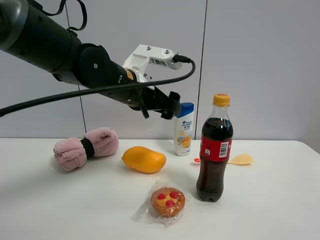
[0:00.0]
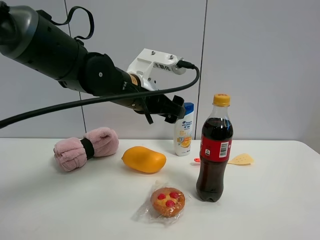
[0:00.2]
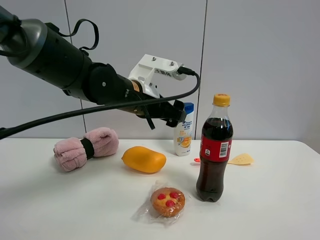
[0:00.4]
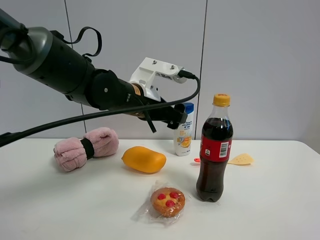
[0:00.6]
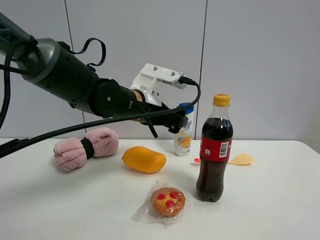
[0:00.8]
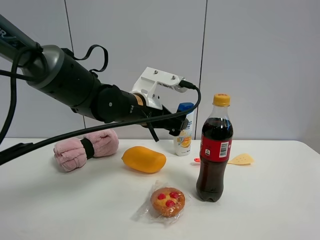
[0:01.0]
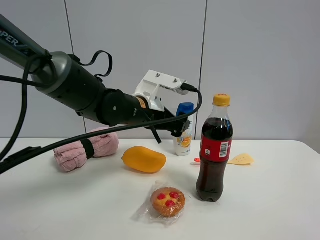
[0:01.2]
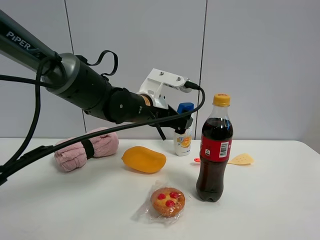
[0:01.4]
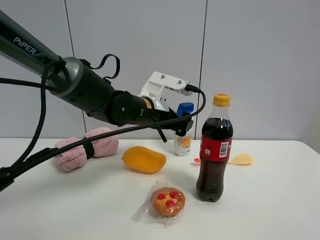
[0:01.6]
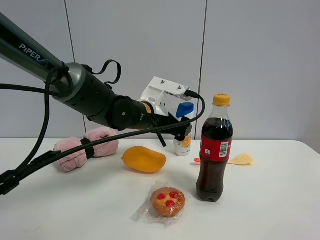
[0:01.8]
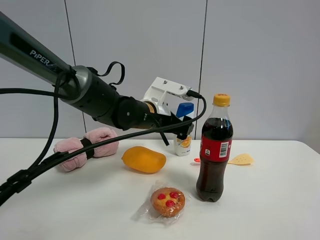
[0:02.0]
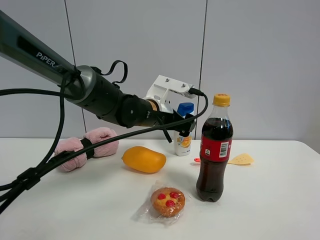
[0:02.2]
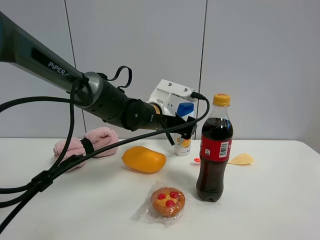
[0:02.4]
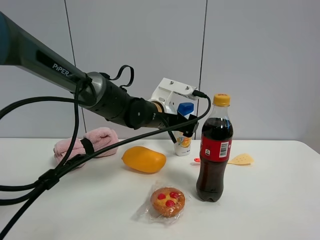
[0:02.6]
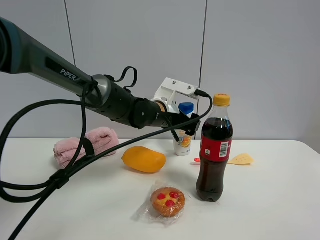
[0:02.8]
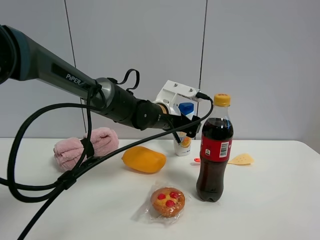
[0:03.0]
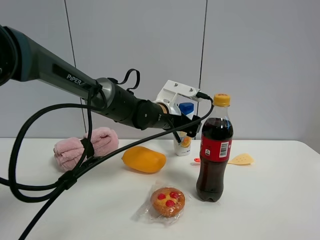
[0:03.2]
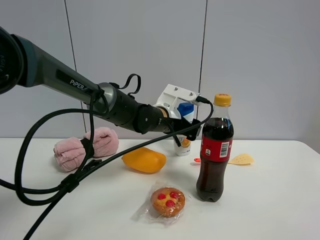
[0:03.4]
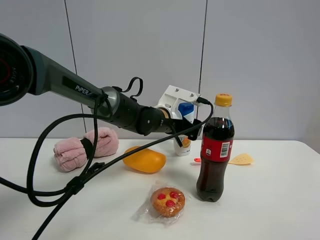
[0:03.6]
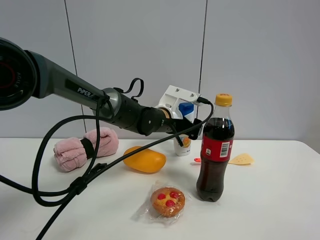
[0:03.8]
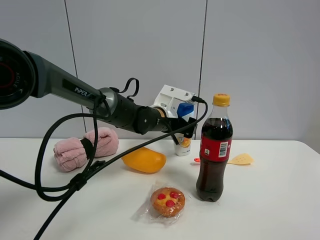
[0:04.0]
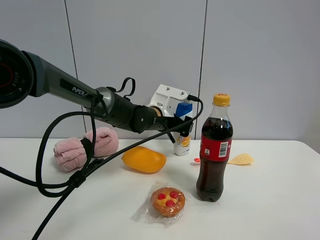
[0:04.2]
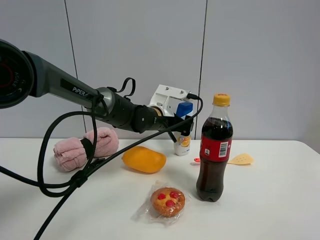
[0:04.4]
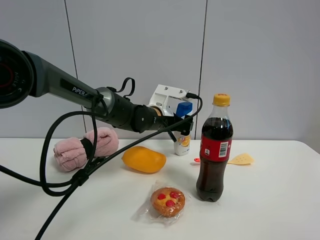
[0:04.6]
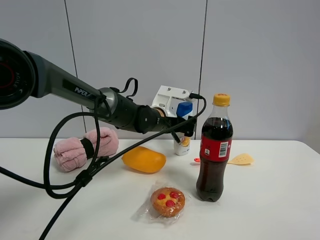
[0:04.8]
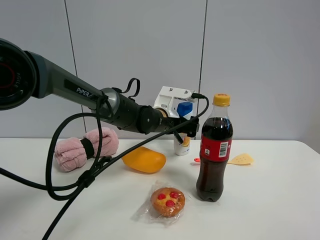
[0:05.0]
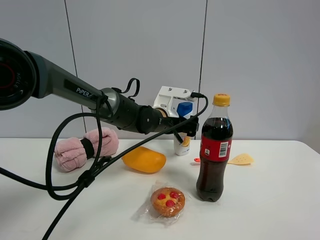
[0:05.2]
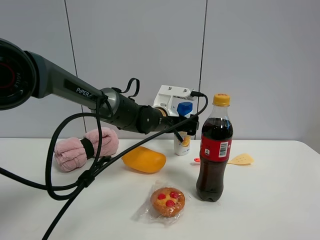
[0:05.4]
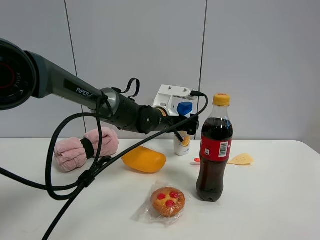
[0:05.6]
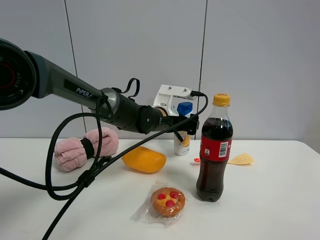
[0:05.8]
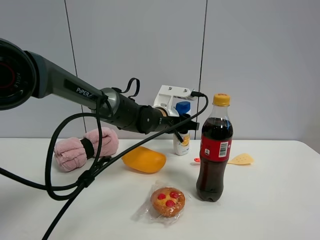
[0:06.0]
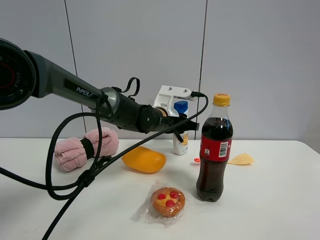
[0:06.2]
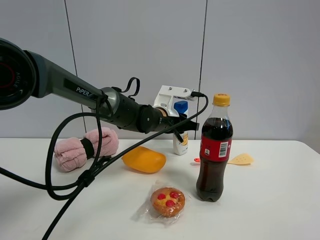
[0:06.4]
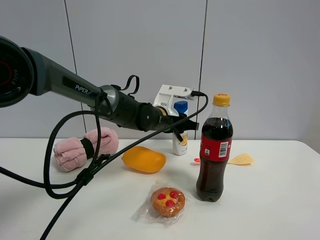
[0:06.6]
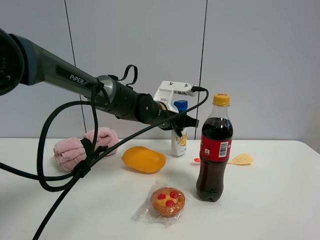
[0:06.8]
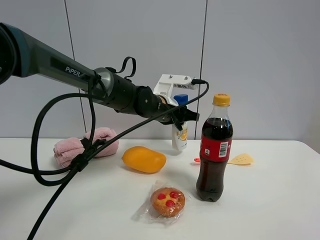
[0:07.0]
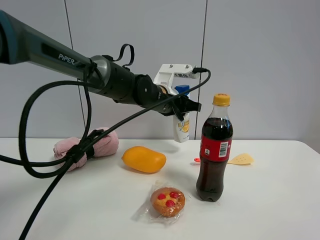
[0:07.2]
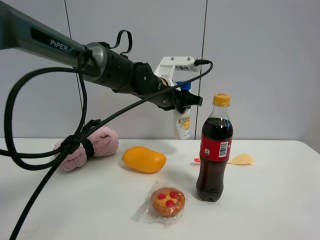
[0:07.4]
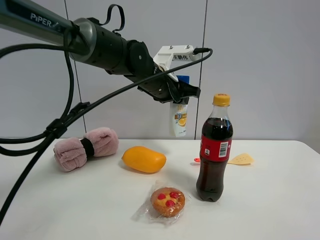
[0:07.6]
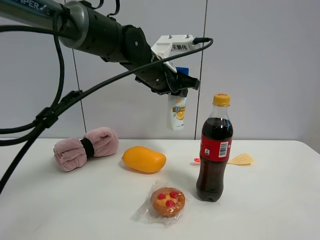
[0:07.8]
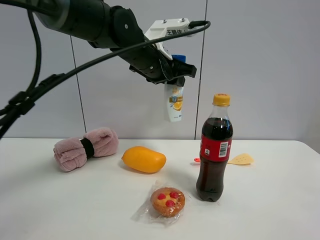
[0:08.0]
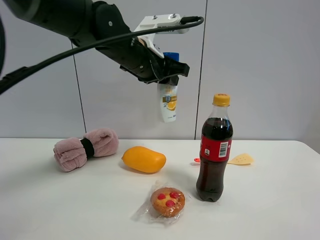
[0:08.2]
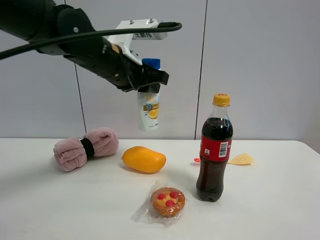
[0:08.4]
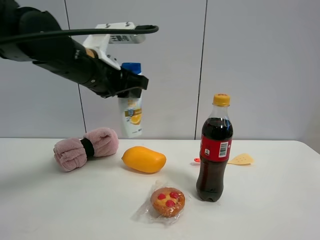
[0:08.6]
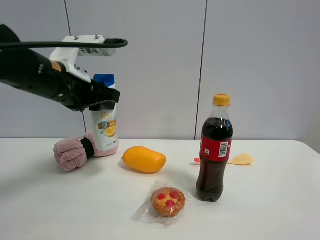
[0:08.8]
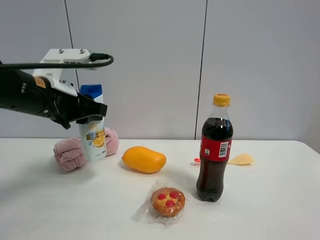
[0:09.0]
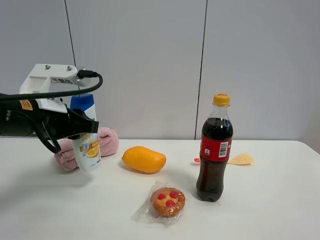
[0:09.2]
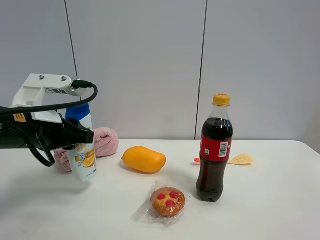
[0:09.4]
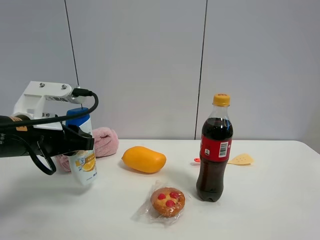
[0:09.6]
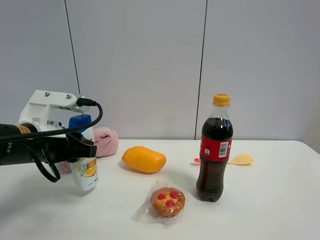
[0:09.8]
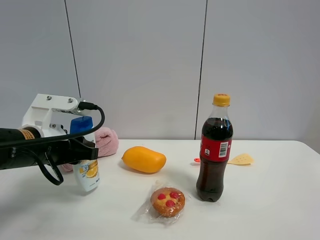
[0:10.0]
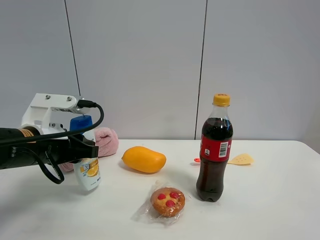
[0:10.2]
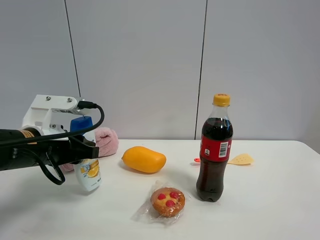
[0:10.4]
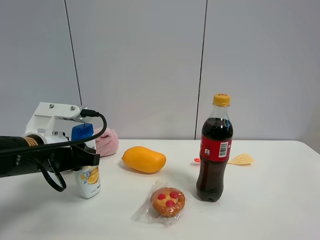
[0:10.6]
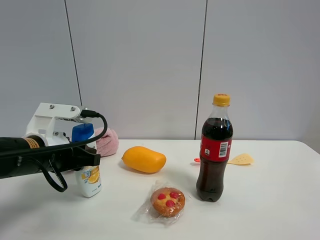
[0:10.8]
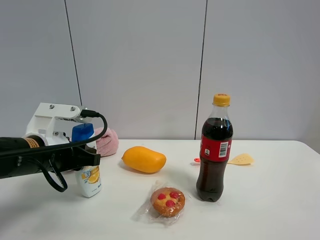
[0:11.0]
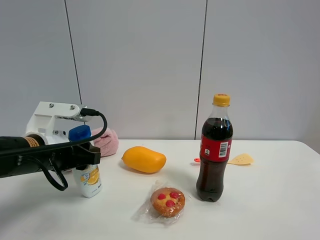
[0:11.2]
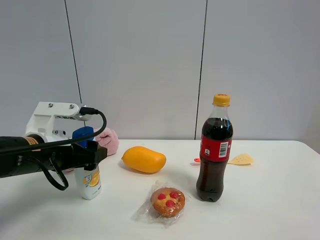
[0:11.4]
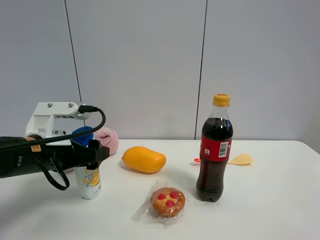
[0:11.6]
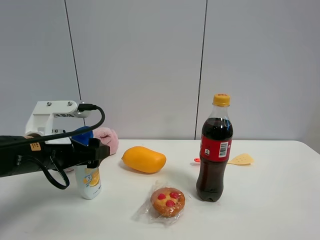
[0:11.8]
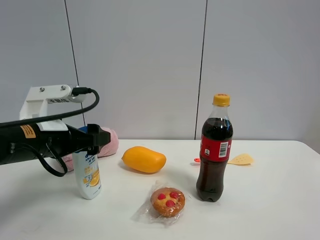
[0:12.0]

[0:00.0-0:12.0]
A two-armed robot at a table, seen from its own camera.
Task of the whole recording: the gripper move the object.
0:00.0 to 0:01.6: The left gripper goes roughly 5 cm downward.
0:01.6 to 0:03.0: The left gripper shifts by approximately 5 cm.
0:03.0 to 0:04.4: The grippers move only a little.
0:04.4 to 0:06.0: The left gripper closes.
0:06.0 to 0:07.6: The left gripper travels upward by about 10 cm.
0:07.6 to 0:09.0: The left gripper goes roughly 20 cm to the left and backward.
0:09.0 to 0:10.4: The left gripper shifts about 5 cm downward.
0:10.4 to 0:12.0: The left gripper opens its fingers.

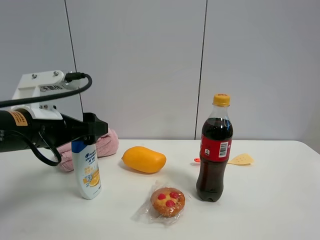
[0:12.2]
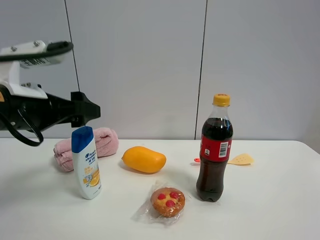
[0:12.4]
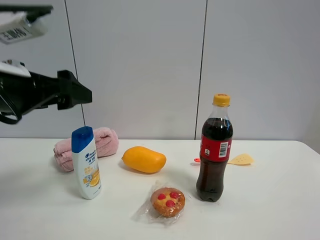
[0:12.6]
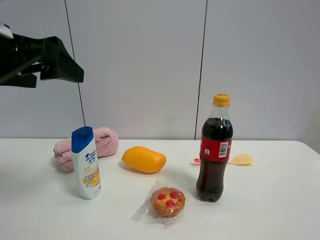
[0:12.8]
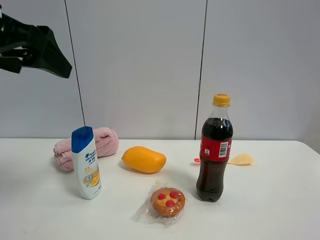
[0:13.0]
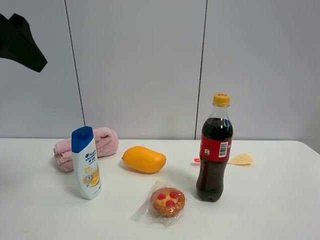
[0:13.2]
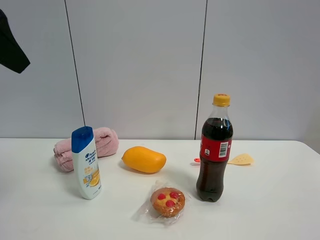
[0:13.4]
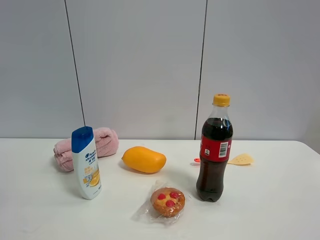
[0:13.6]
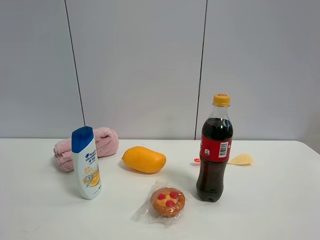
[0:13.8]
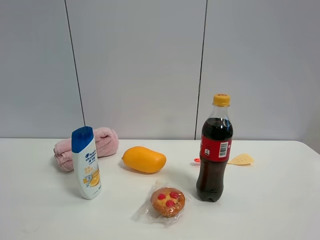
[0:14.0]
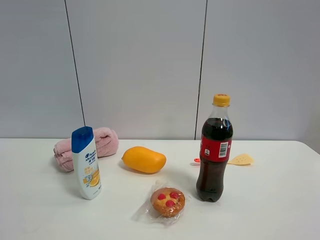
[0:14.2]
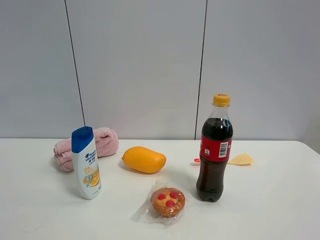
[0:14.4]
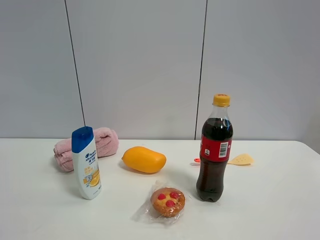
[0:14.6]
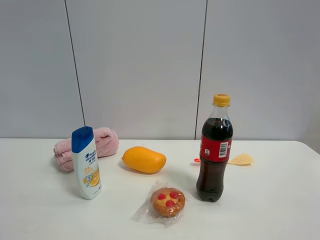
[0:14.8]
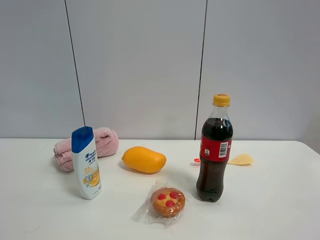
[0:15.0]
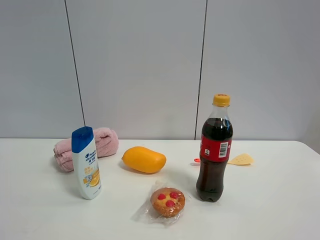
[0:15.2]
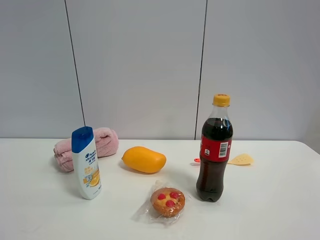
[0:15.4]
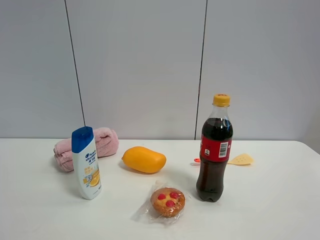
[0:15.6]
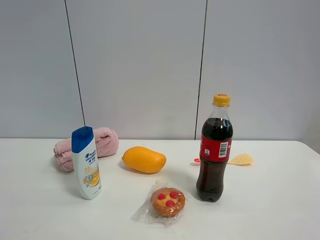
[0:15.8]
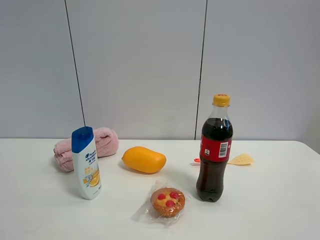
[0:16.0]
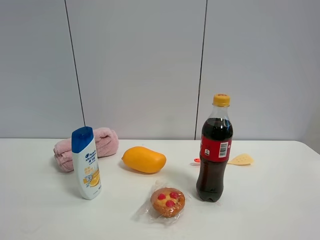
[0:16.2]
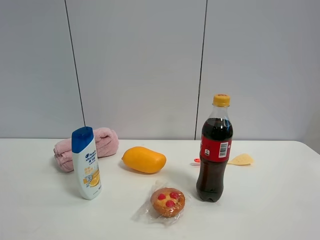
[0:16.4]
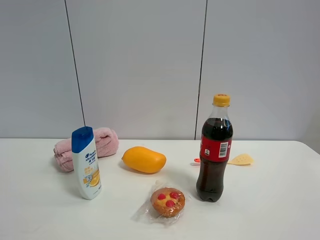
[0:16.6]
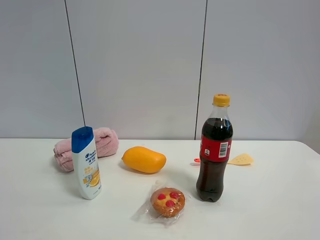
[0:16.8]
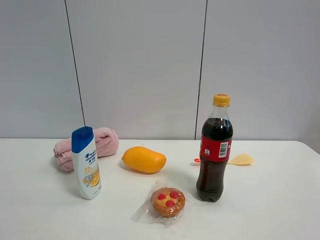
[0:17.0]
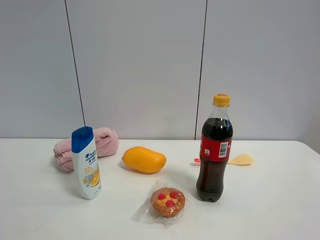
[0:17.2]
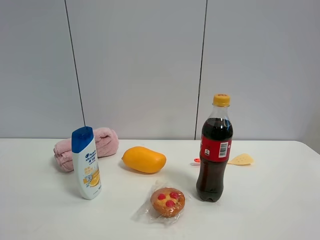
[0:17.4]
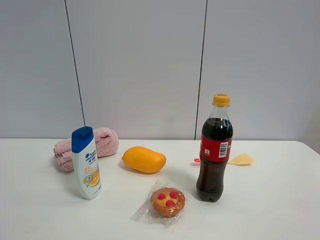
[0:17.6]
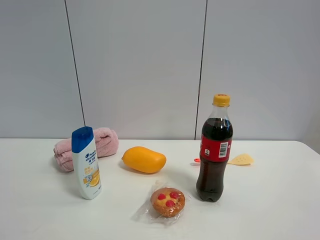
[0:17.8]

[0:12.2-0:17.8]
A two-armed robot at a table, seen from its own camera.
Task of the whole recording: the gripper move the object.
0:12.2 to 0:13.6: The left gripper shifts approximately 25 cm upward and backward.
0:16.4 to 0:17.8: Neither gripper changes place.

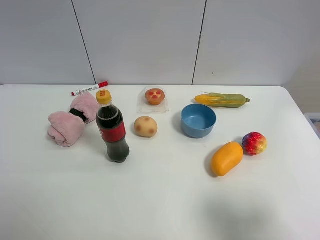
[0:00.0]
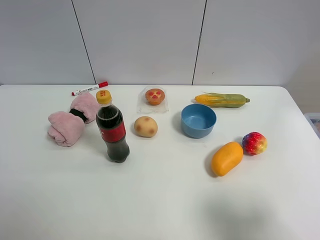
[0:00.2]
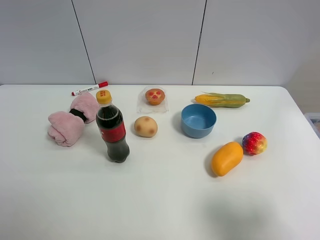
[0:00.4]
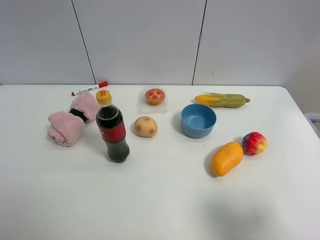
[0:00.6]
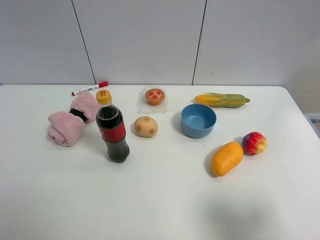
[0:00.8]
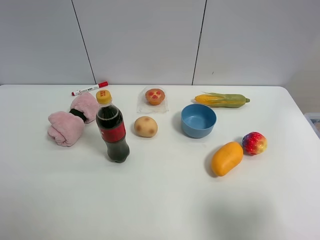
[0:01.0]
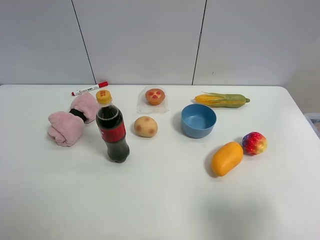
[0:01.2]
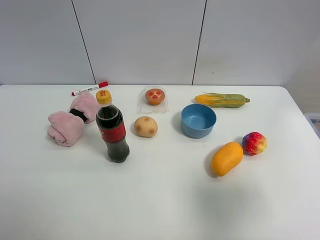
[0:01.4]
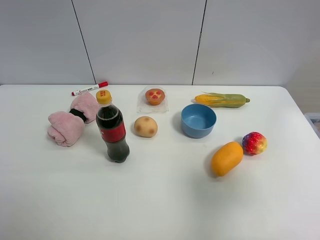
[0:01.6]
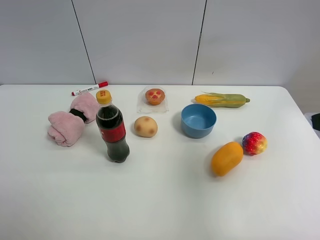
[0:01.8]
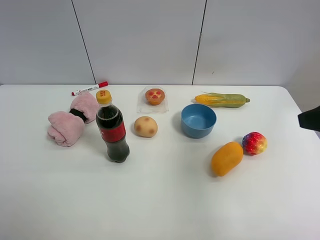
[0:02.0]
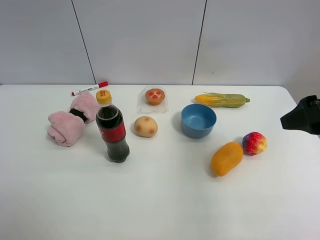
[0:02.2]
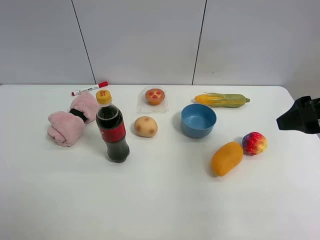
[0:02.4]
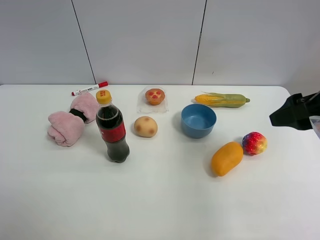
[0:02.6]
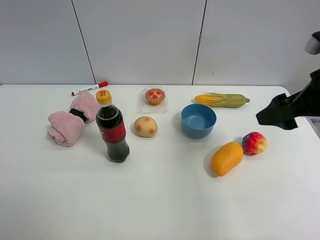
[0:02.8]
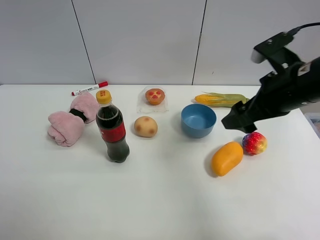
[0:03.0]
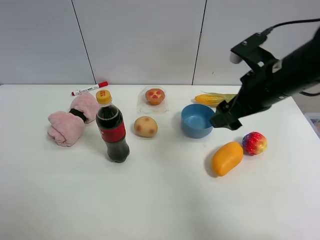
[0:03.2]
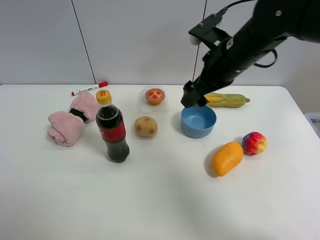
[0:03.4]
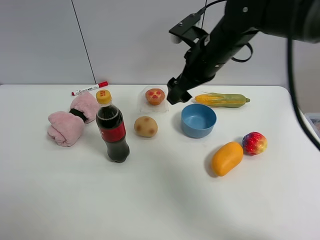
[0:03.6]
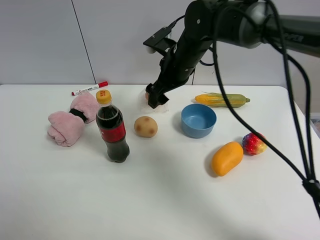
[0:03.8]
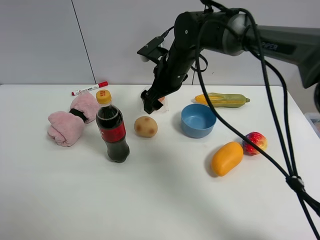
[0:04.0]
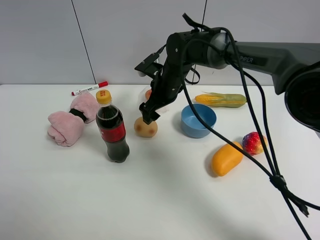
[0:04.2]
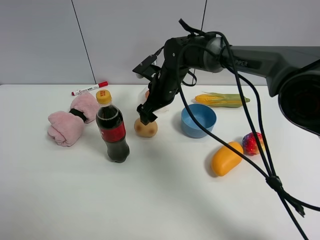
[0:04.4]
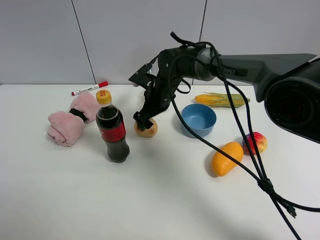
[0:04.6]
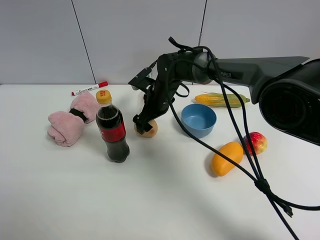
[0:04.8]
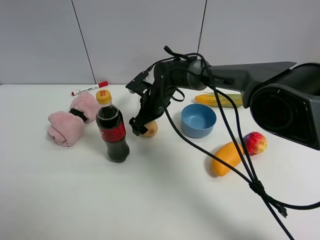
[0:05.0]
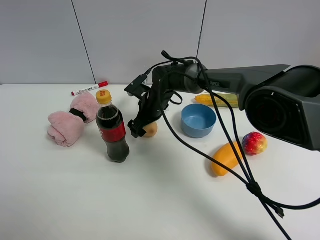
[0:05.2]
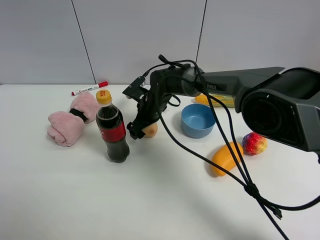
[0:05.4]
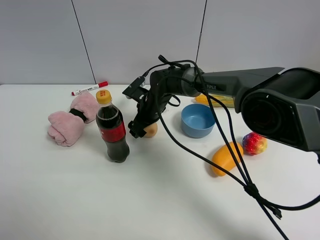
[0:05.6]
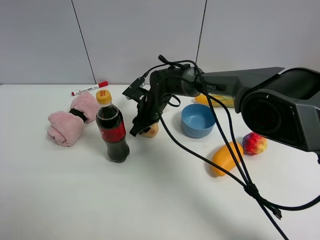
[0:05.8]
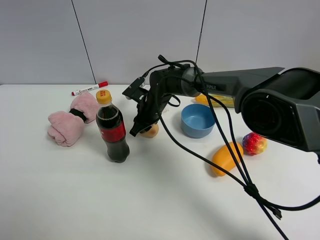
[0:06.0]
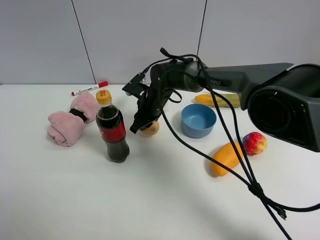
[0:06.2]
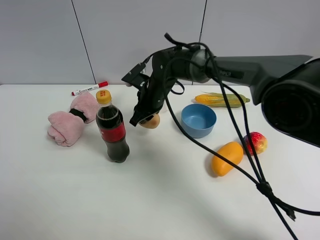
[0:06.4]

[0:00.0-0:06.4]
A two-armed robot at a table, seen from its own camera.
Task of the whole recording: the gripper move the object.
Step, 0:00.0 to 0:06.0: Grasp the egg yolk pastry with the right gripper.
0:00.0 to 0:01.6: The right gripper is displaced upward and forward by about 10 cm.
0:01.6 to 0:03.2: The right gripper shifts approximately 25 cm forward and to the left.
0:03.2 to 0:04.8: The right gripper travels to the left, downward and forward by roughly 25 cm.
0:04.8 to 0:06.4: The right gripper closes up.
